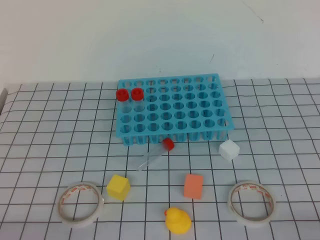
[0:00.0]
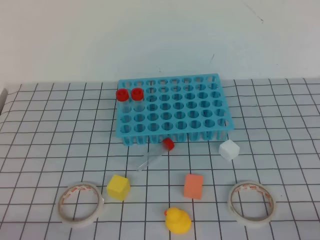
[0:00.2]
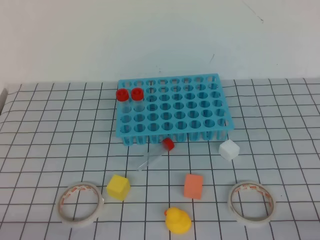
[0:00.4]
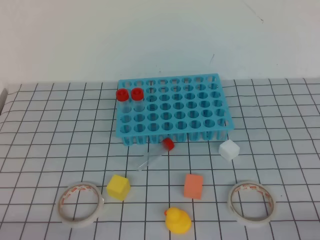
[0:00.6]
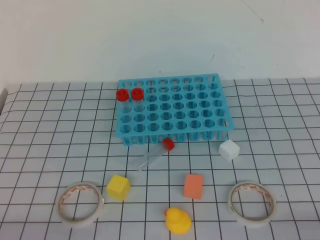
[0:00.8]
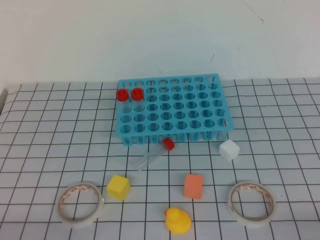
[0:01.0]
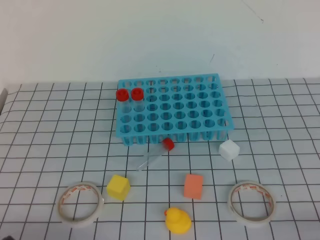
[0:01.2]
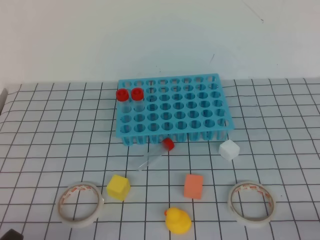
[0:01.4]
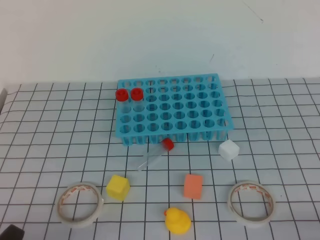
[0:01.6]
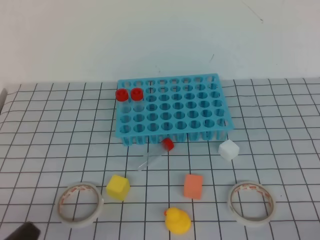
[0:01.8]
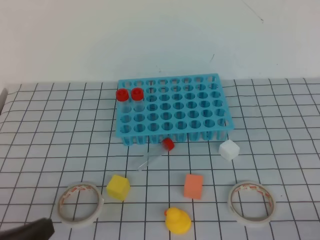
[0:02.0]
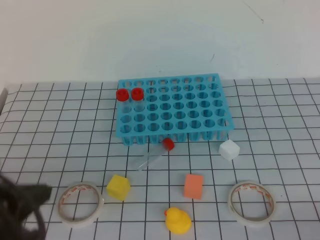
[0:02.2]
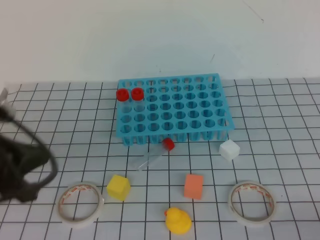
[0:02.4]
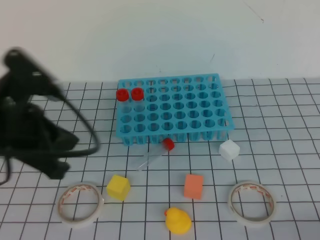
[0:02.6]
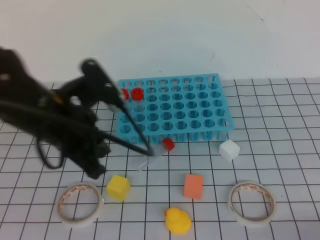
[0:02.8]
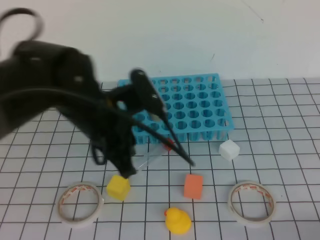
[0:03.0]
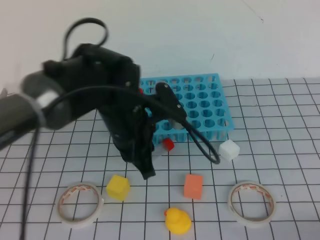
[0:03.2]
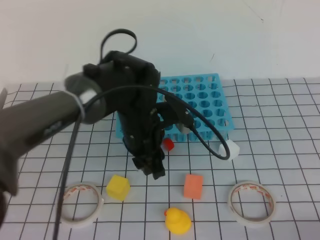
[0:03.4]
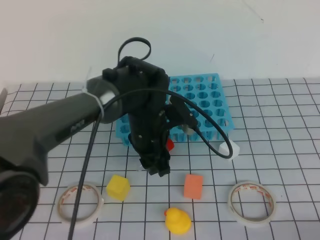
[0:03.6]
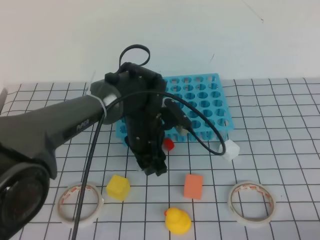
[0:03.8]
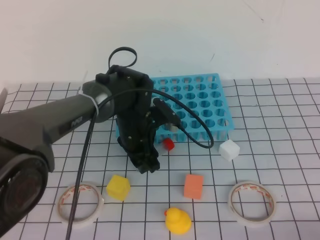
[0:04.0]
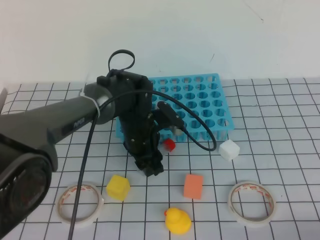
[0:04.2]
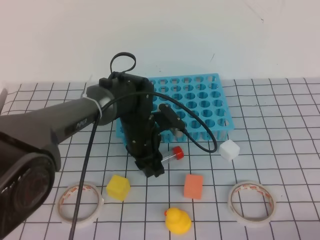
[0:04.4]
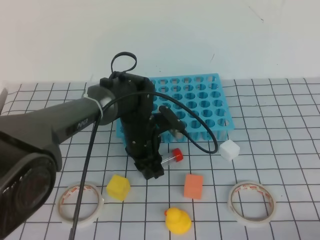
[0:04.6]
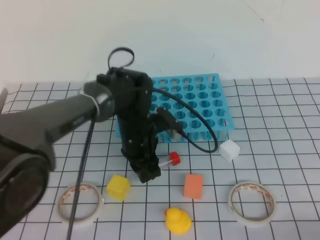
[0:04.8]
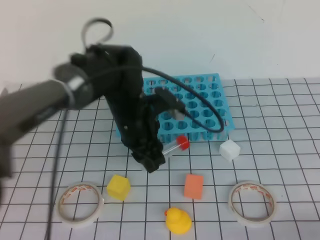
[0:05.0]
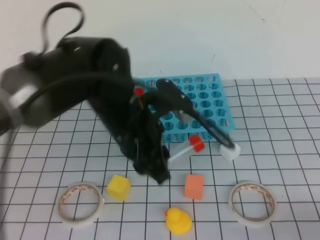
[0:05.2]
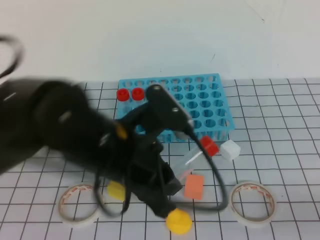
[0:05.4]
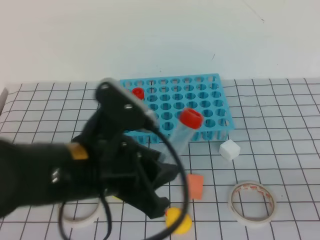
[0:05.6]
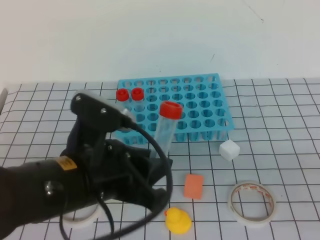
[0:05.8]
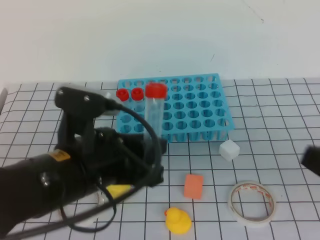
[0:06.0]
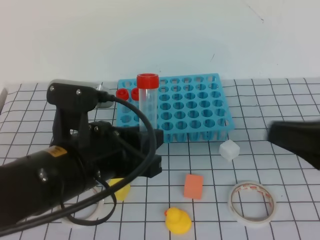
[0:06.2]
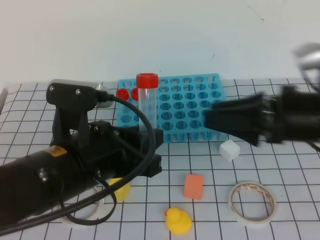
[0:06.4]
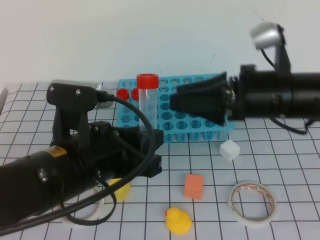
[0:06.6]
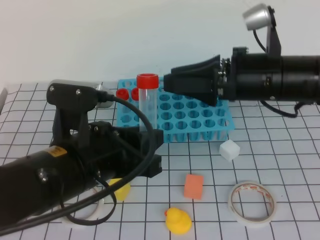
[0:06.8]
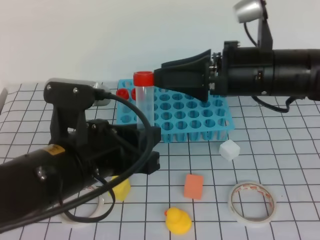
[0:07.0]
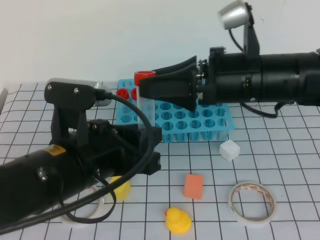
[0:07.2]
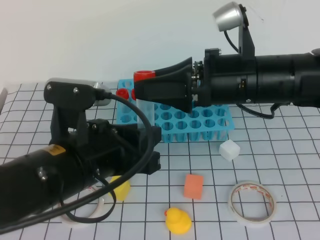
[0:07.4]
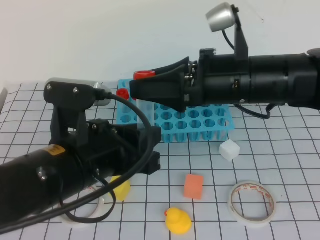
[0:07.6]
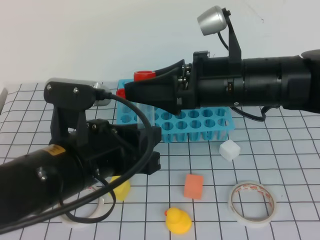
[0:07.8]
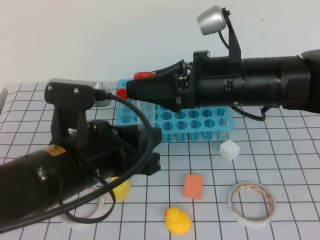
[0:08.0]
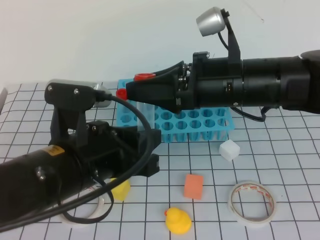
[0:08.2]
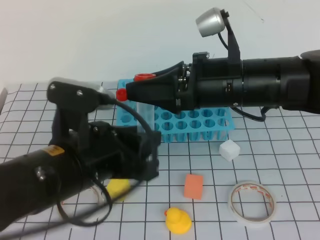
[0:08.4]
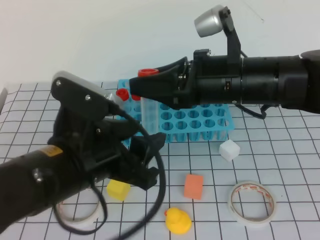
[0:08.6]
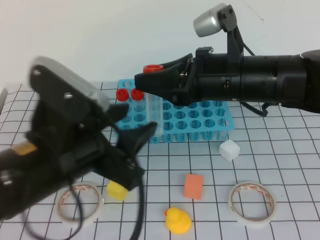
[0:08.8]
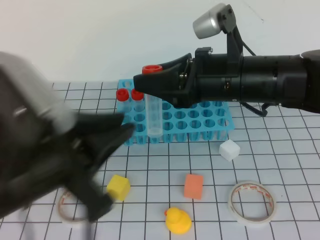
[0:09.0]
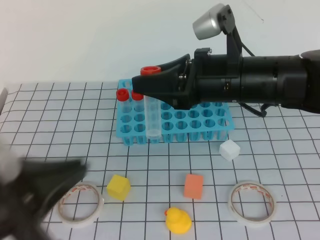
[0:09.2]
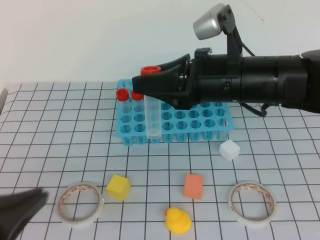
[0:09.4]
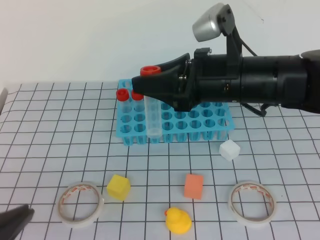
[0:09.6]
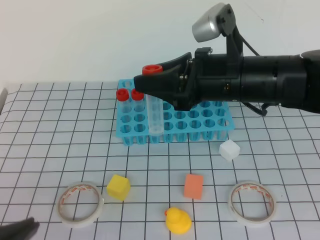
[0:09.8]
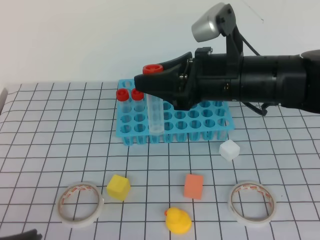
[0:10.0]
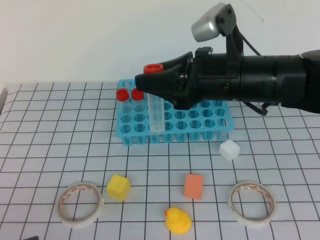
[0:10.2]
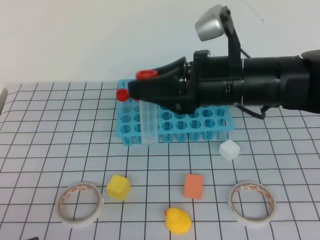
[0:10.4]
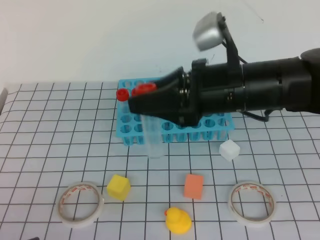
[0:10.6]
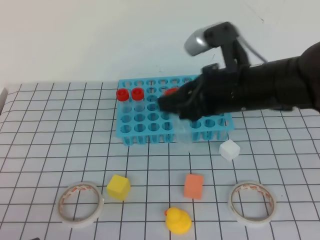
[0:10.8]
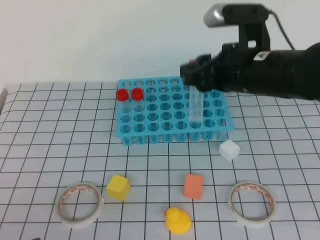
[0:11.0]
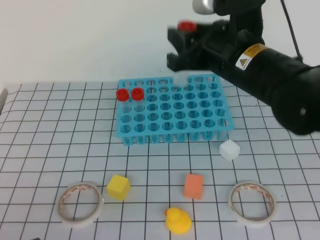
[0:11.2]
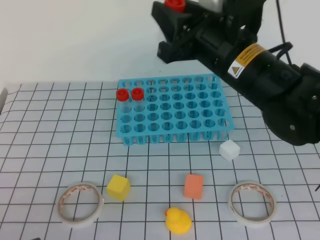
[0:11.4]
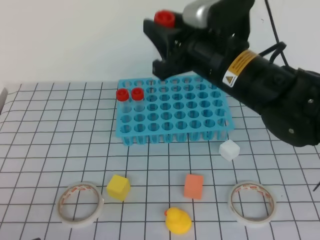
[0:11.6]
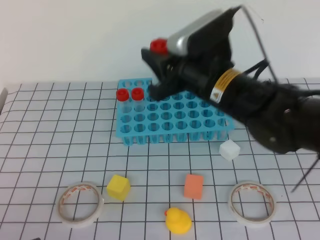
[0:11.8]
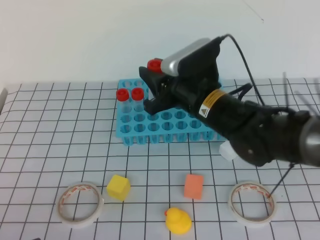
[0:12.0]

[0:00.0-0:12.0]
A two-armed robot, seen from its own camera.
0:01.6 to 0:03.0: The left gripper shifts roughly 30 cm forward, to the right and upward.
0:03.0 to 0:04.4: The left gripper travels downward, forward and to the right by approximately 20 cm, and opens up.
0:04.4 to 0:06.0: The right gripper moves upward and forward, approximately 15 cm; the left gripper is displaced backward and upward by some 25 cm.
0:06.0 to 0:07.6: The right gripper goes approximately 25 cm to the left and forward, and opens up.
0:07.6 to 0:09.0: The left gripper moves approximately 5 cm, and opens and closes again.
0:09.0 to 0:10.4: The left gripper moves backward, to the left and downward, some 15 cm, and closes up.
0:10.4 to 0:12.0: The right gripper moves downward, about 5 cm.

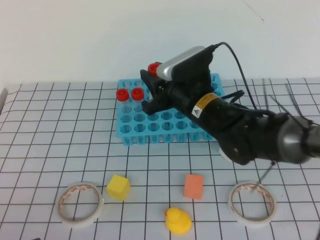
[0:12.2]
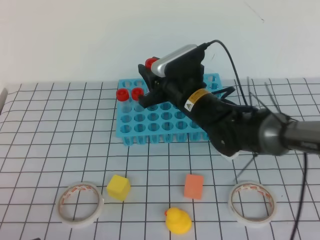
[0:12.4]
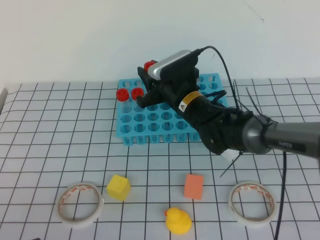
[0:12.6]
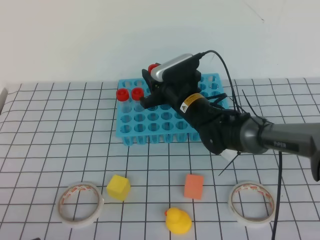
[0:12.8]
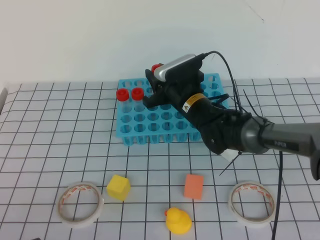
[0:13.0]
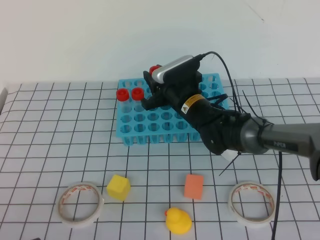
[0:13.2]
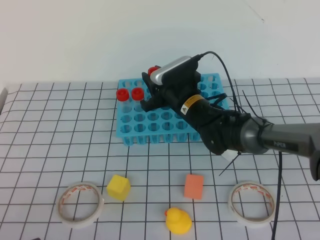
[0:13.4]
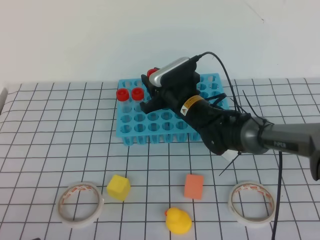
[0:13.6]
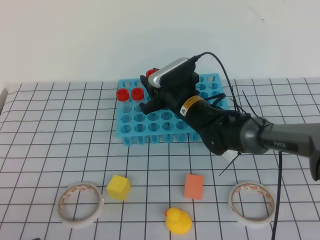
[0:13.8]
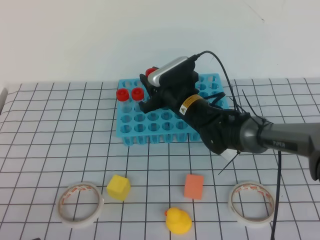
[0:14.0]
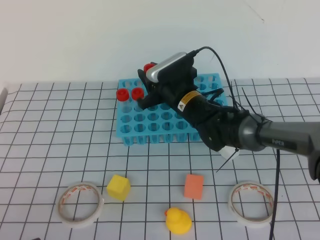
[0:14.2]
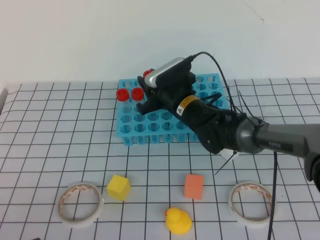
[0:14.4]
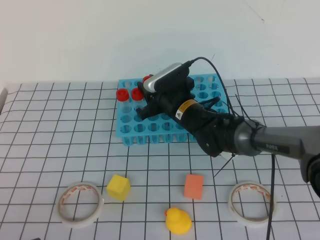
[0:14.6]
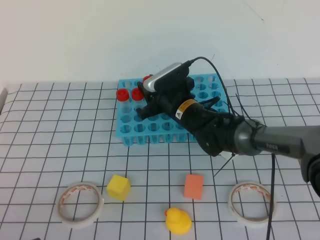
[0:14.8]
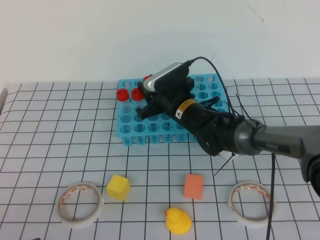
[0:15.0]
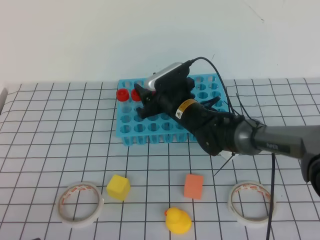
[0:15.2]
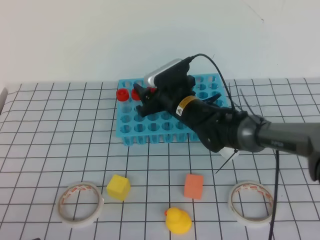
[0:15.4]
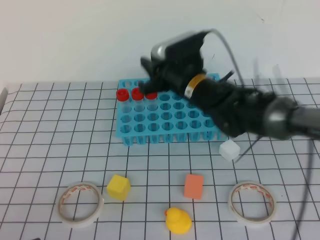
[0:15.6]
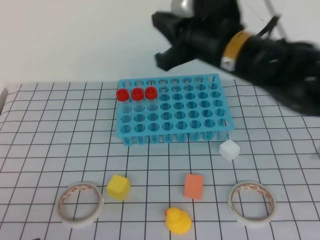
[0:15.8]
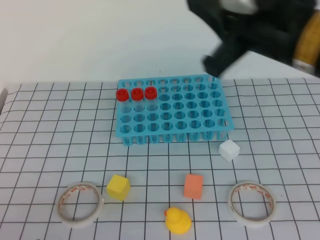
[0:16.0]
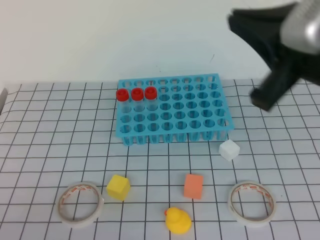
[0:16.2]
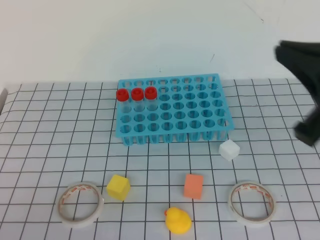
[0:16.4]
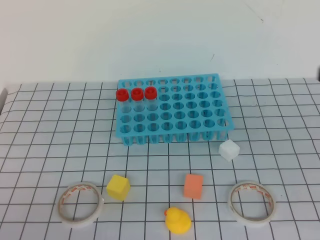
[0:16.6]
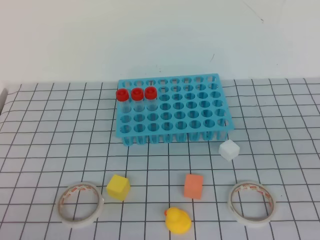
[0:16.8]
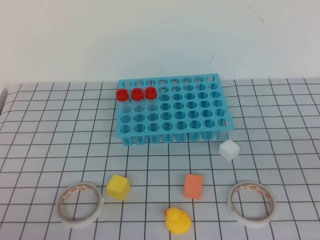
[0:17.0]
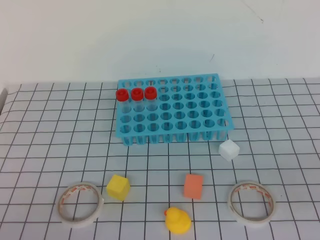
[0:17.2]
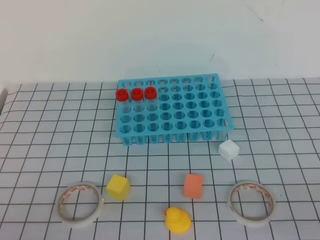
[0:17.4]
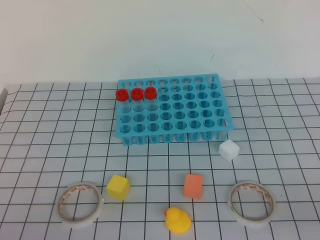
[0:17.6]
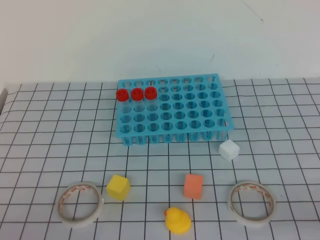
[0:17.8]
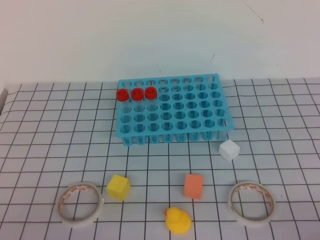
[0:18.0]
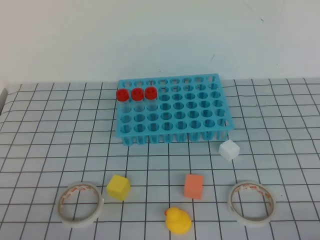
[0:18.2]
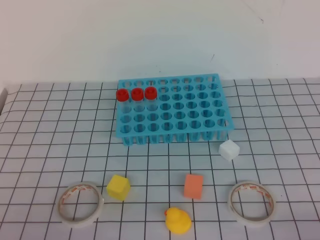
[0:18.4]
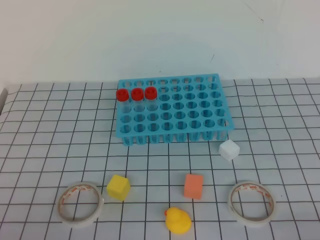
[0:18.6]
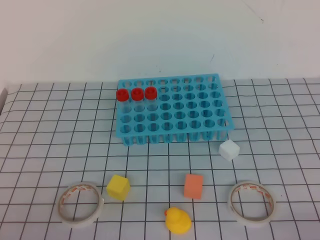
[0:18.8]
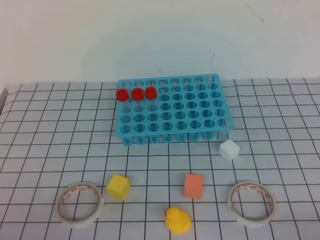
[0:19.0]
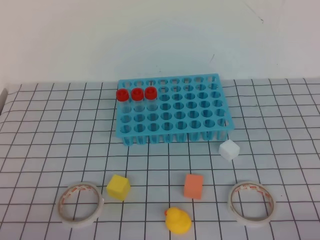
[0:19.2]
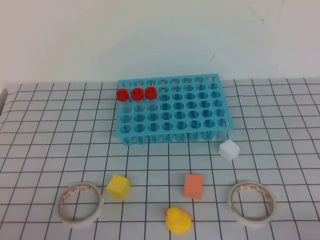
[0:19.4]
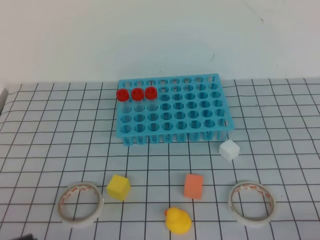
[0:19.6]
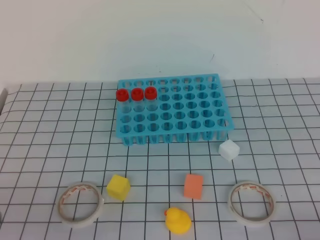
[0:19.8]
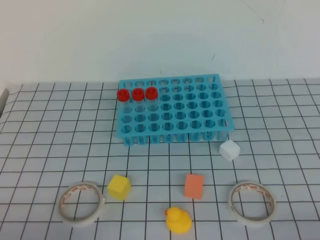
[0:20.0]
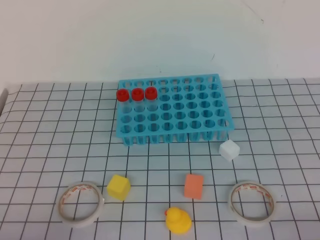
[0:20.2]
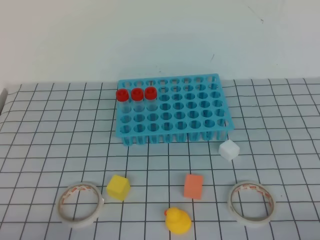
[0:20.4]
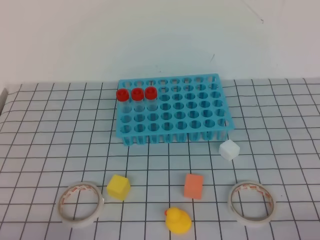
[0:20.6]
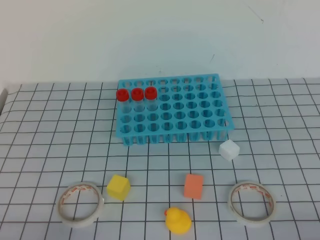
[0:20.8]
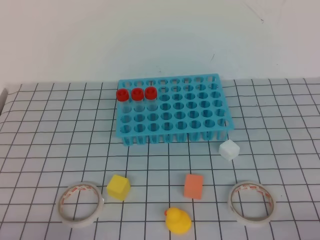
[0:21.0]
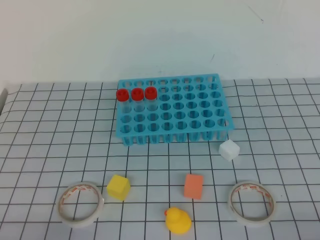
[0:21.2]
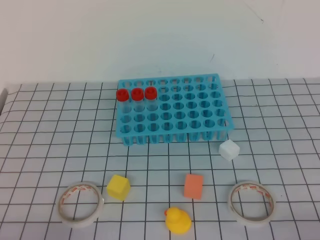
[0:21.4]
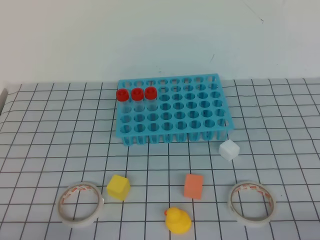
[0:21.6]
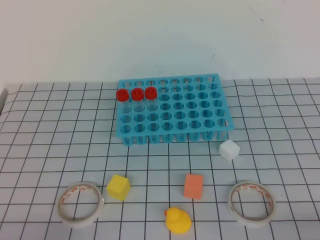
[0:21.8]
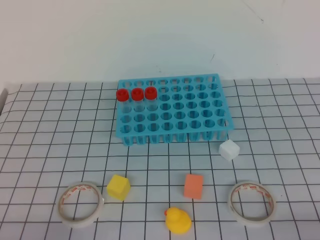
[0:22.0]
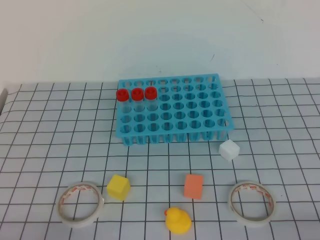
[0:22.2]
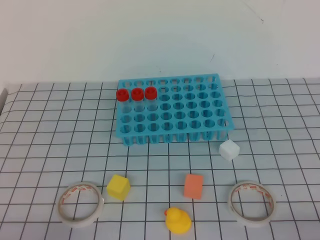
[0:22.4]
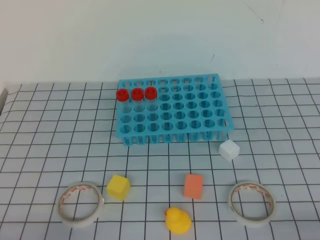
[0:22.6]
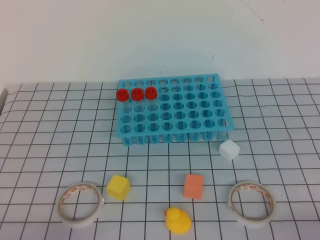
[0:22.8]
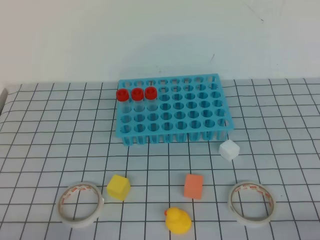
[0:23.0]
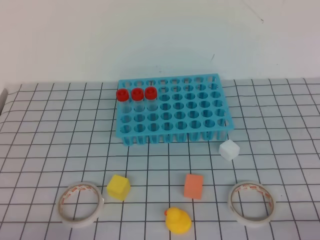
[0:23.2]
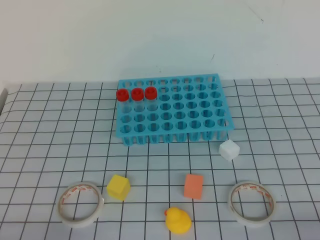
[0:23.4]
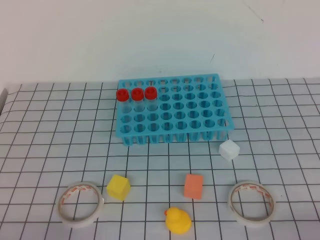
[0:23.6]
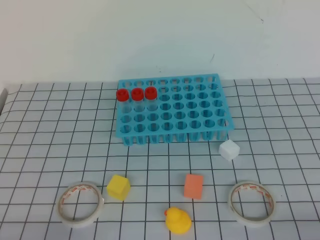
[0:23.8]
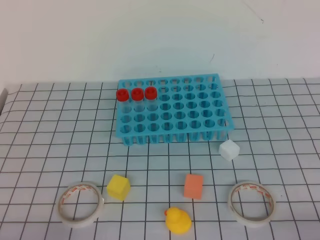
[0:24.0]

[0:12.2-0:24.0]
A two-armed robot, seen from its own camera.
0:12.2 to 0:13.6: The right gripper is displaced forward and downward by approximately 10 cm.
0:13.6 to 0:15.2: There are only small adjustments of the grippers.
0:15.2 to 0:16.6: The right gripper is displaced backward, upward and to the right by about 40 cm, and closes its fingers.
0:16.6 to 0:18.2: The right gripper travels downward, to the right and backward by some 25 cm.
0:22.6 to 0:24.0: Both grippers stay about where they are.
